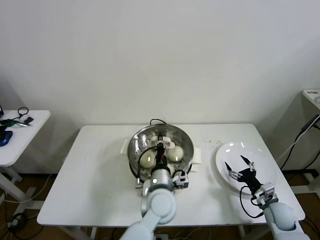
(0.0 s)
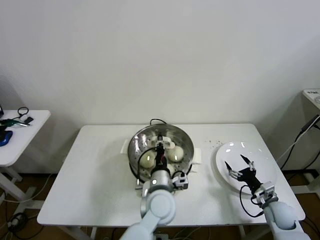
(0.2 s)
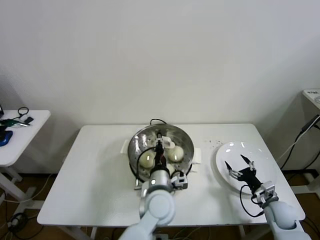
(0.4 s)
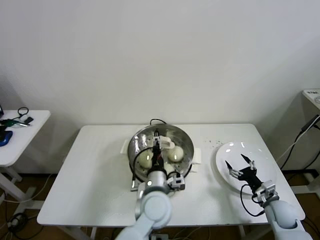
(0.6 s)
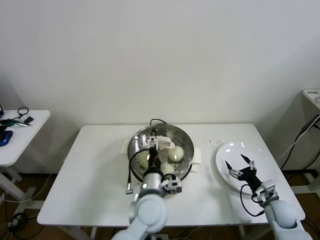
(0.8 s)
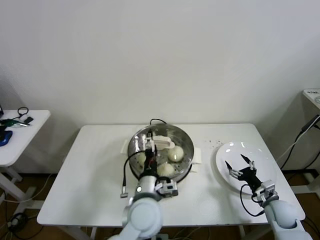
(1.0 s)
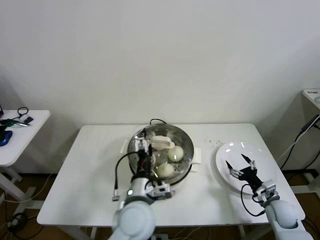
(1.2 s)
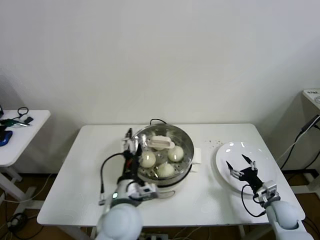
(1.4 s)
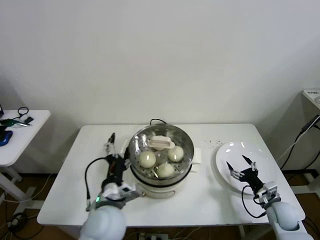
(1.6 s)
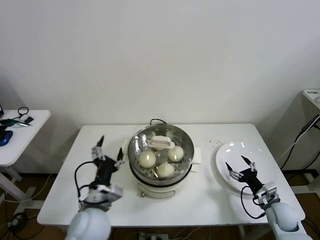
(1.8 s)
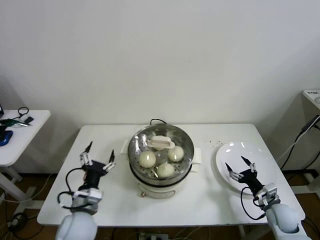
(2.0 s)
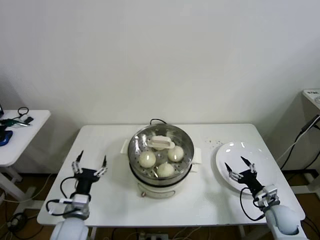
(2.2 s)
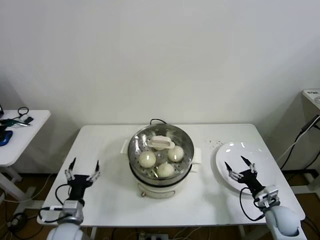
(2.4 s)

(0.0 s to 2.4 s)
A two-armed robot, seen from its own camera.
0.0 s - 1.2 s: The left gripper goes approximately 5 cm to the left, and opens.
1.2 s - 2.4 s: The left gripper shifts about 25 cm to the left and downward.
